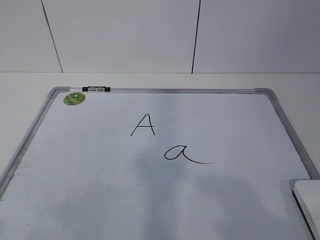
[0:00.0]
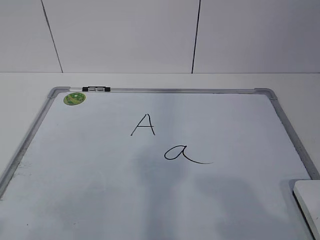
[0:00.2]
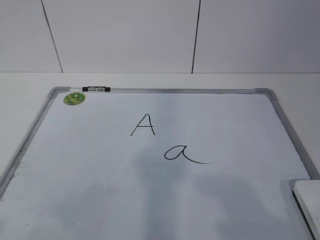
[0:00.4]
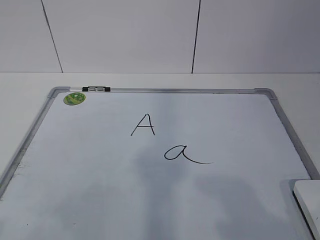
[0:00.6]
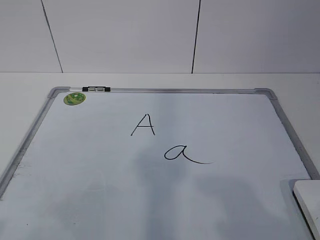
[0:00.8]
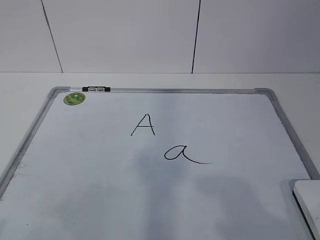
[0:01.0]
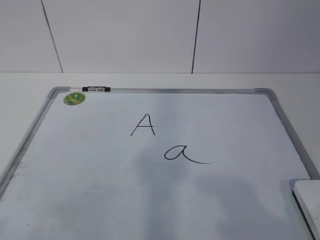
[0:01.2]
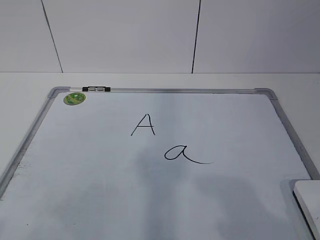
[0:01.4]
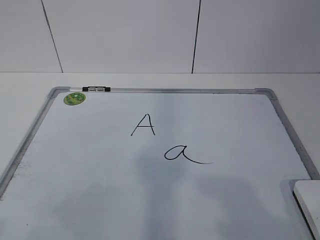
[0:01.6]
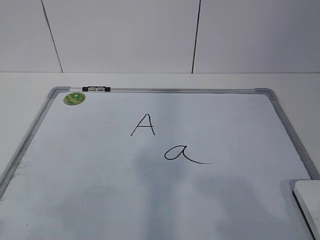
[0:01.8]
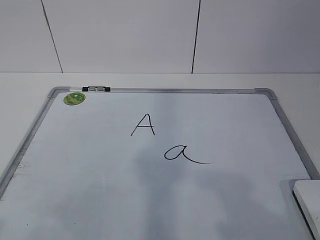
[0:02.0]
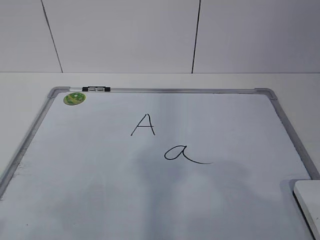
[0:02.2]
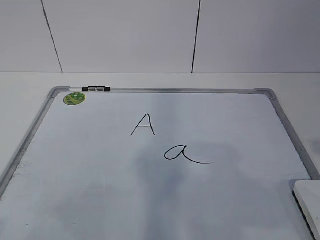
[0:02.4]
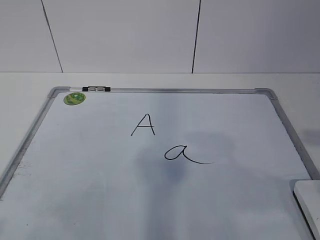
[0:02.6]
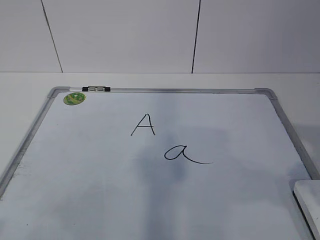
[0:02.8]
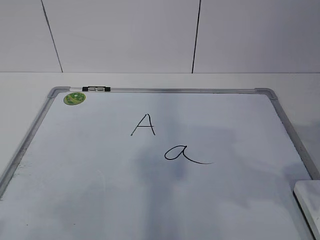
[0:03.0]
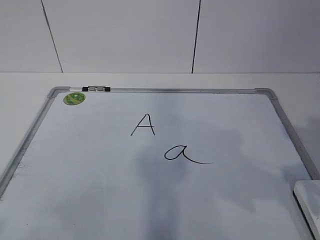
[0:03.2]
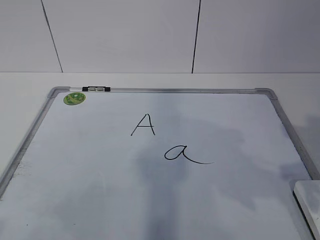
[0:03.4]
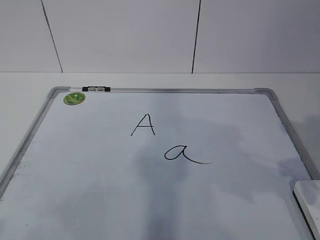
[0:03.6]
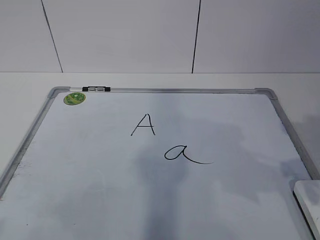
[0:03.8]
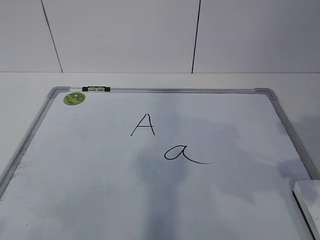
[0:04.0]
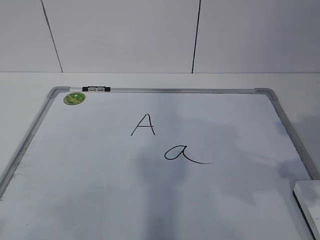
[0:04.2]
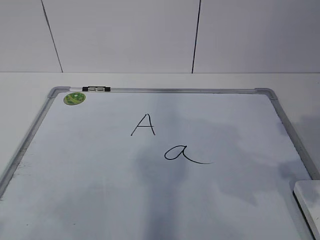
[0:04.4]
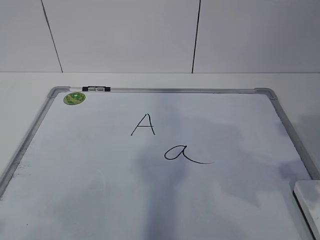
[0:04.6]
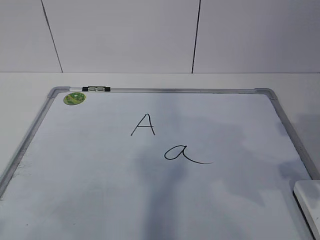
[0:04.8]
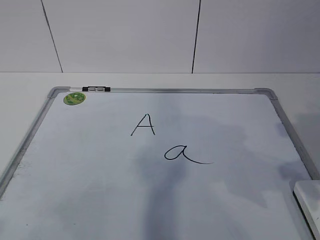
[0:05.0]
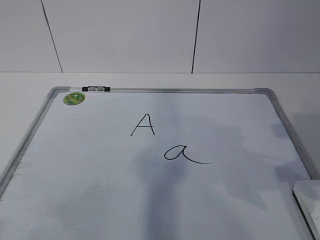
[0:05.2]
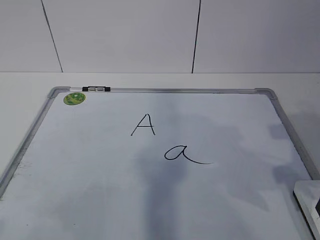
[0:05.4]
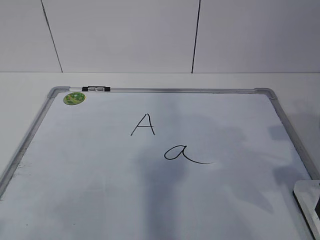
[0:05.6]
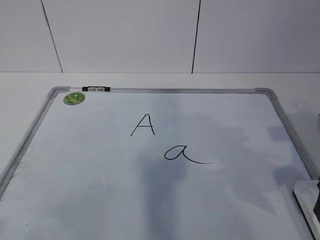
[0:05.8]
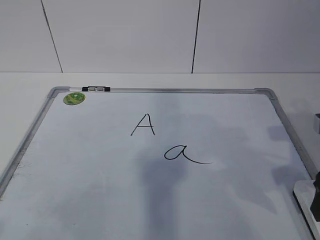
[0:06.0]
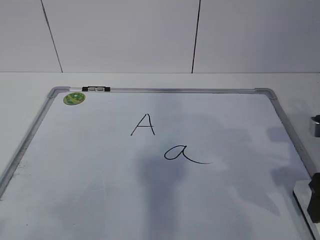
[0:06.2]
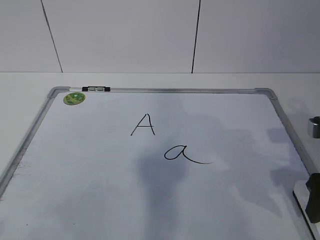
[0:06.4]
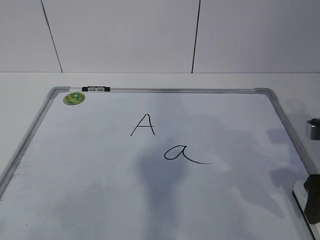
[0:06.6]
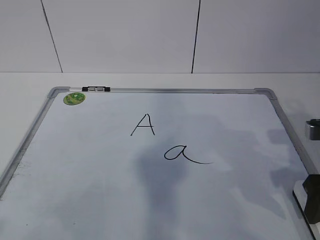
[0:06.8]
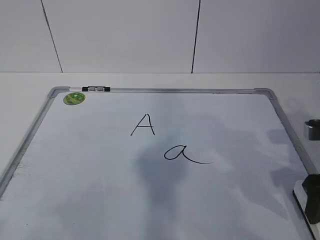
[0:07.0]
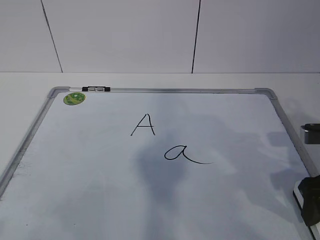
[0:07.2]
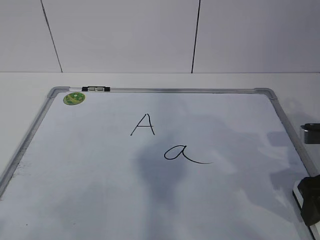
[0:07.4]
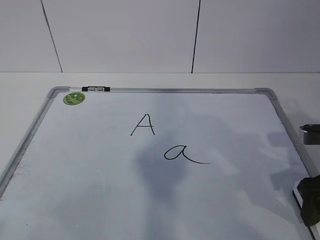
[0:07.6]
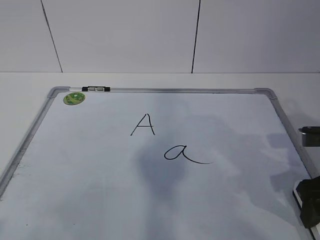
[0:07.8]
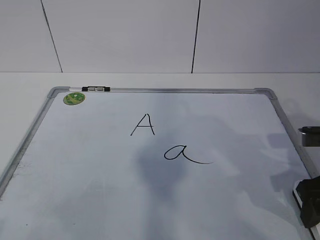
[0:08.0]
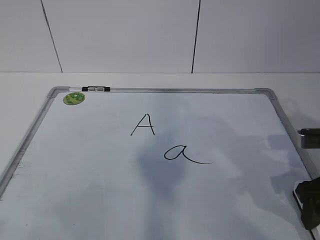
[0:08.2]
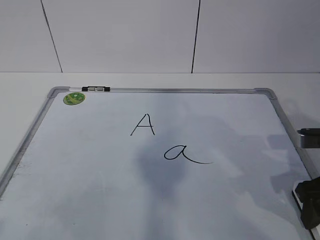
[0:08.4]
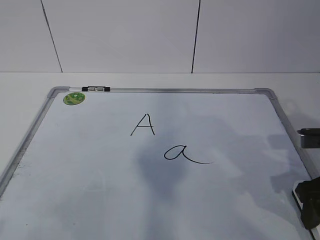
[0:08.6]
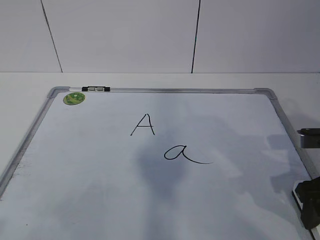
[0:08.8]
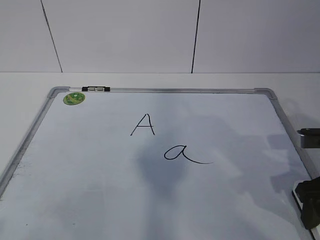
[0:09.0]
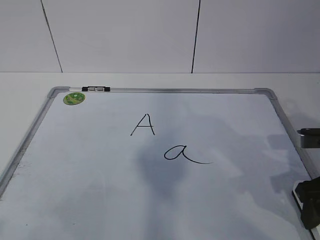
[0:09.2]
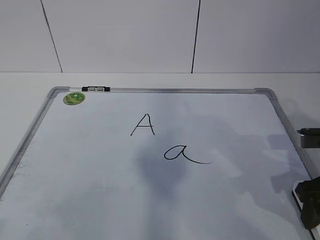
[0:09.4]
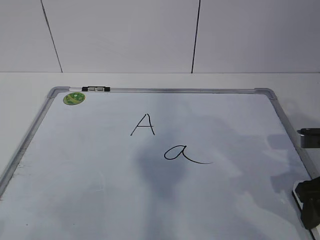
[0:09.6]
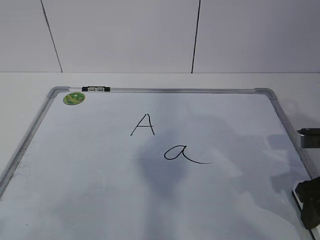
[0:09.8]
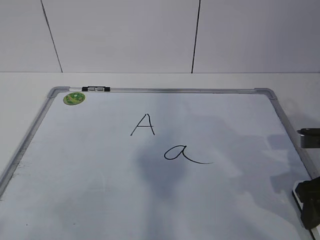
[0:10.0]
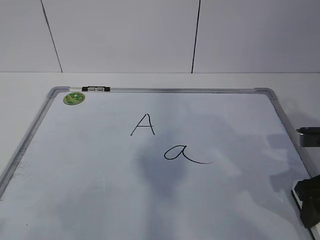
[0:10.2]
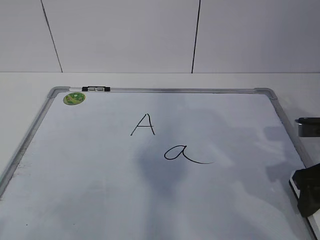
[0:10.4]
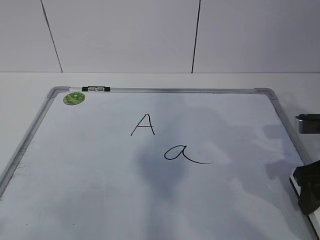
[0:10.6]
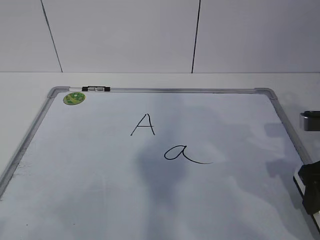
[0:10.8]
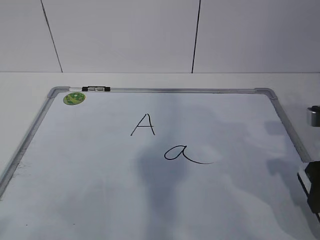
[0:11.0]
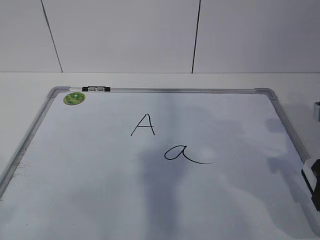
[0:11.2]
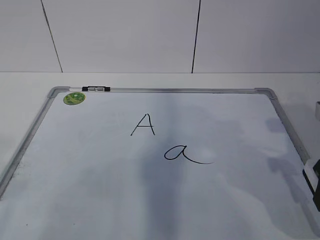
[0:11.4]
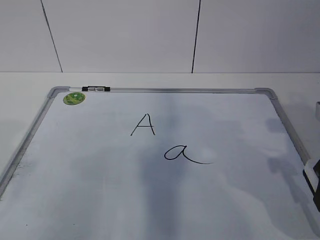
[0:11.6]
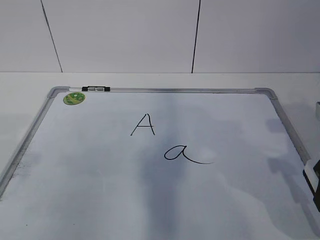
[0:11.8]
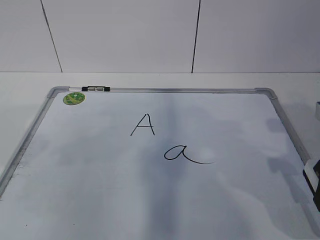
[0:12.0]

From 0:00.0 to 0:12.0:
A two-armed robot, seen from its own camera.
Task of the whole recording: pick up the eraser on the blackboard and erase the letter "a".
Step, from 0:07.0 to 0:11.6: Hold the drawing board steady with your left hand.
From 0:06.0 to 0:07.6: The grippers move only a little.
From 0:07.6 to 0:10.4: Both grippers stay put.
From 0:10.4 to 0:12.0: The right gripper moves roughly 5 cm.

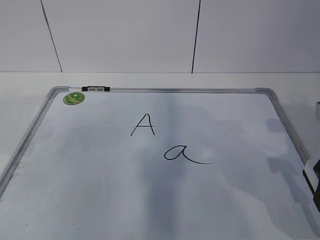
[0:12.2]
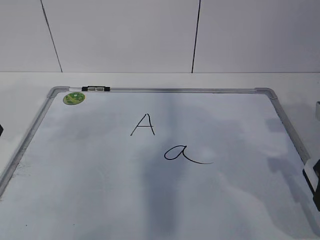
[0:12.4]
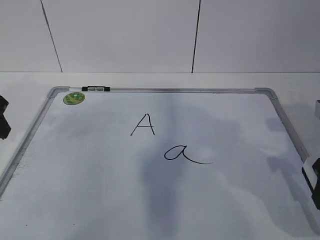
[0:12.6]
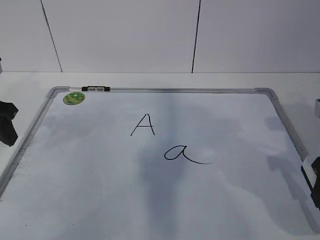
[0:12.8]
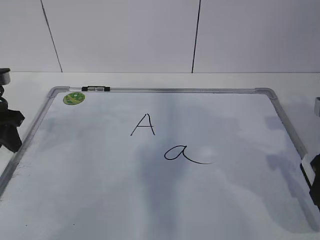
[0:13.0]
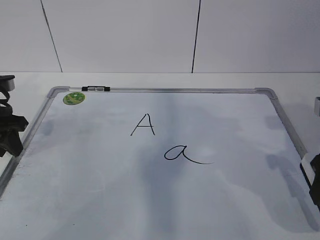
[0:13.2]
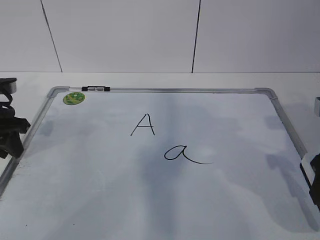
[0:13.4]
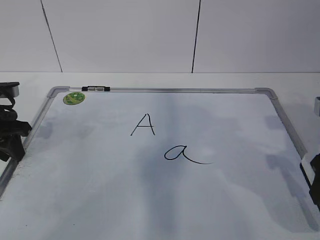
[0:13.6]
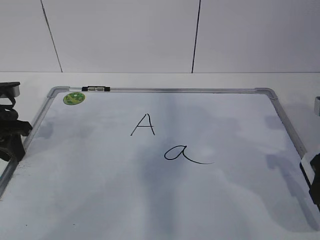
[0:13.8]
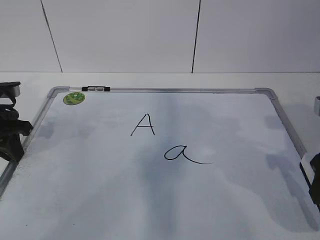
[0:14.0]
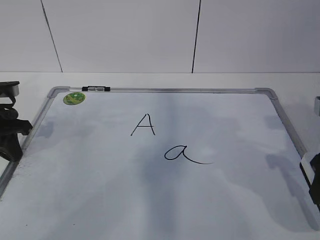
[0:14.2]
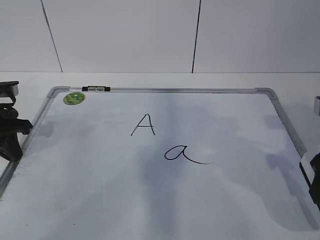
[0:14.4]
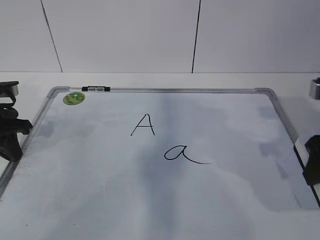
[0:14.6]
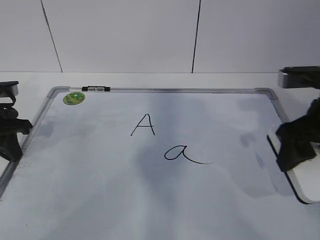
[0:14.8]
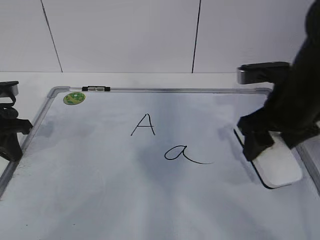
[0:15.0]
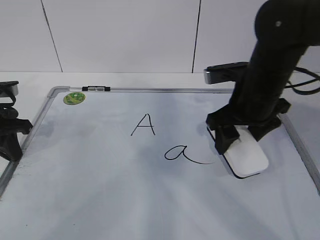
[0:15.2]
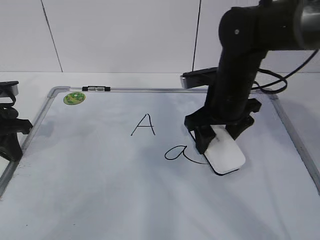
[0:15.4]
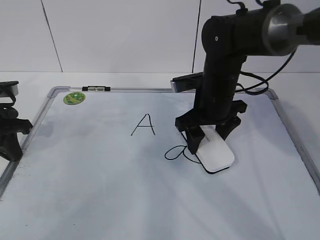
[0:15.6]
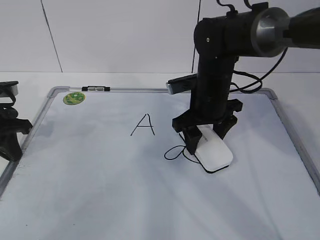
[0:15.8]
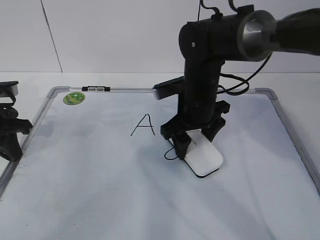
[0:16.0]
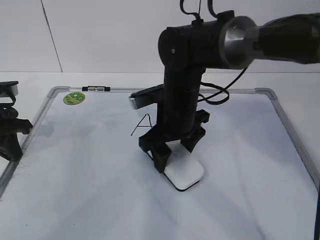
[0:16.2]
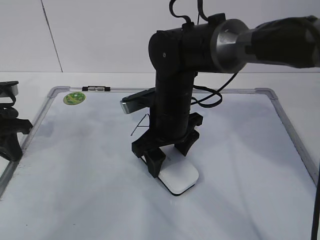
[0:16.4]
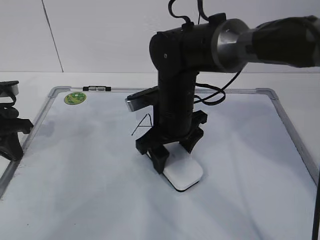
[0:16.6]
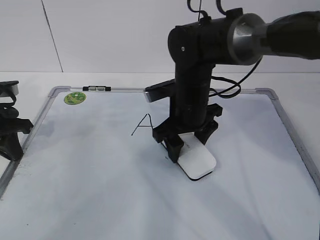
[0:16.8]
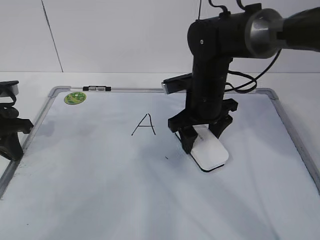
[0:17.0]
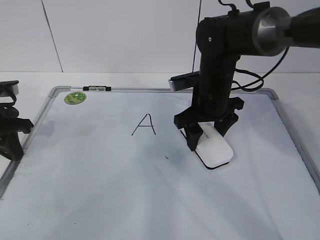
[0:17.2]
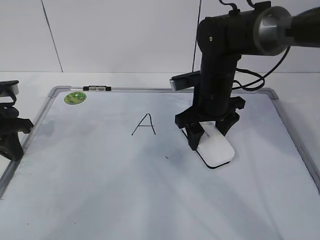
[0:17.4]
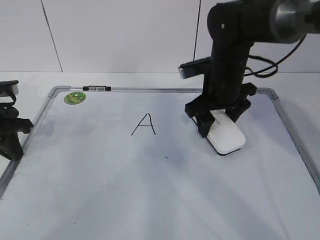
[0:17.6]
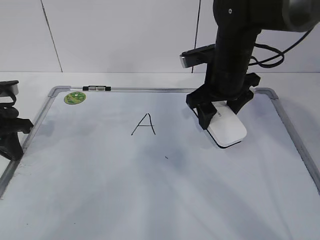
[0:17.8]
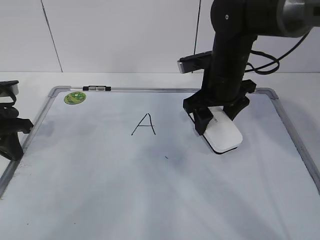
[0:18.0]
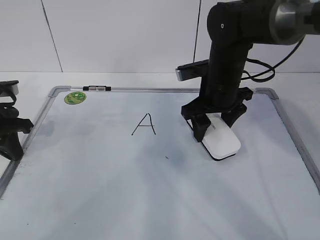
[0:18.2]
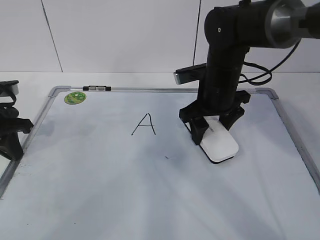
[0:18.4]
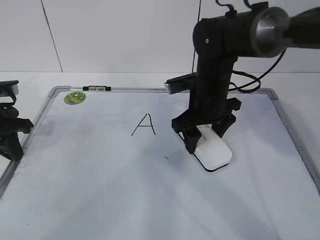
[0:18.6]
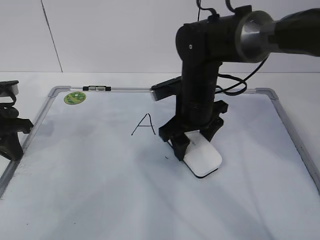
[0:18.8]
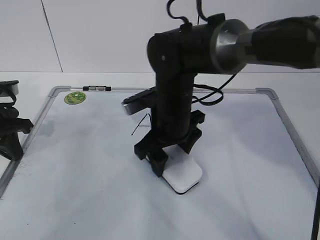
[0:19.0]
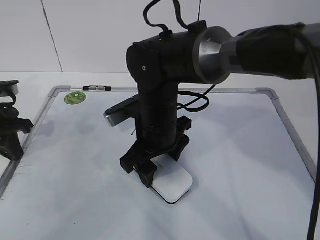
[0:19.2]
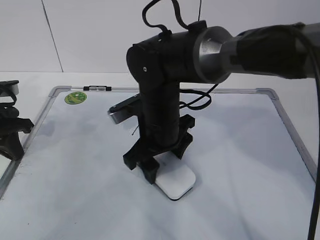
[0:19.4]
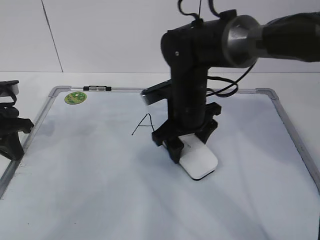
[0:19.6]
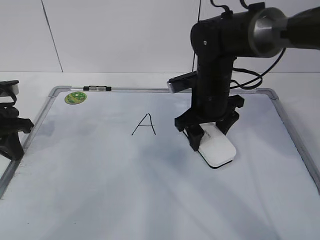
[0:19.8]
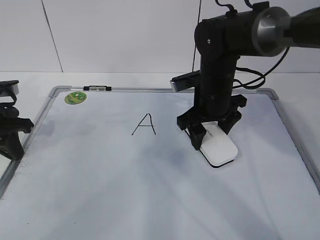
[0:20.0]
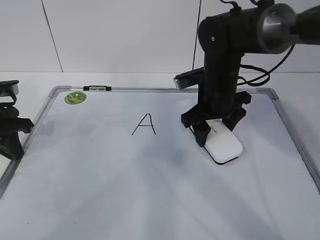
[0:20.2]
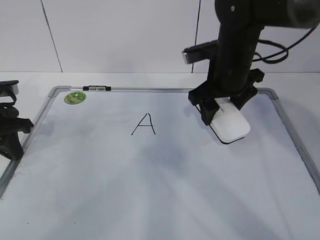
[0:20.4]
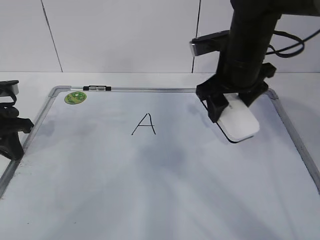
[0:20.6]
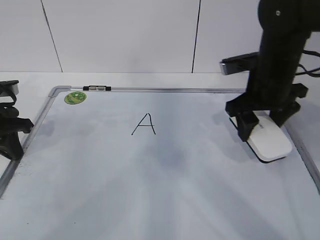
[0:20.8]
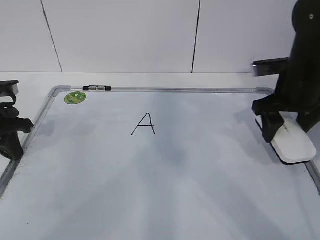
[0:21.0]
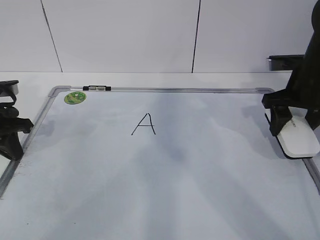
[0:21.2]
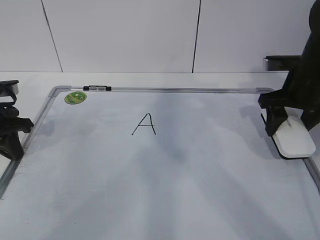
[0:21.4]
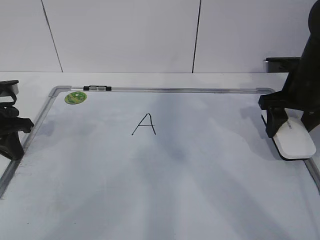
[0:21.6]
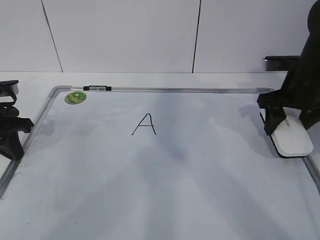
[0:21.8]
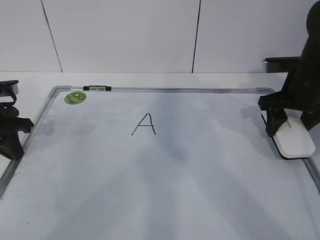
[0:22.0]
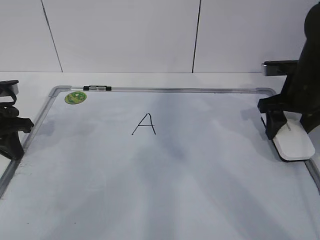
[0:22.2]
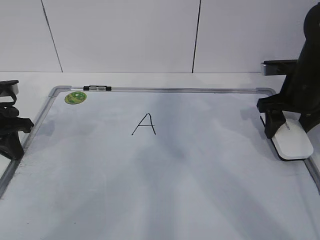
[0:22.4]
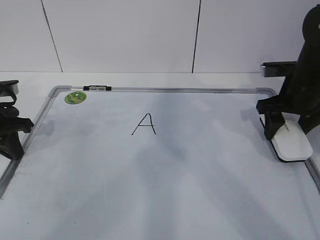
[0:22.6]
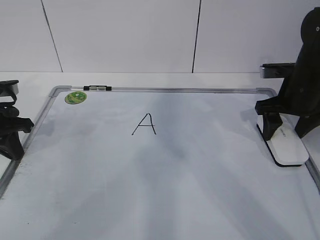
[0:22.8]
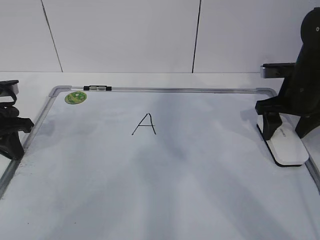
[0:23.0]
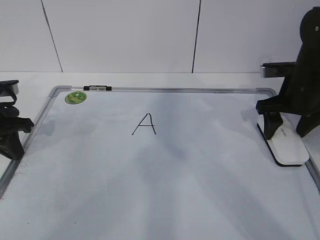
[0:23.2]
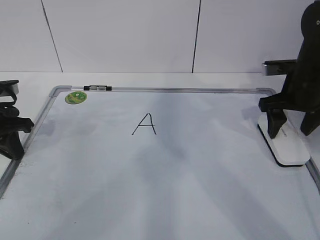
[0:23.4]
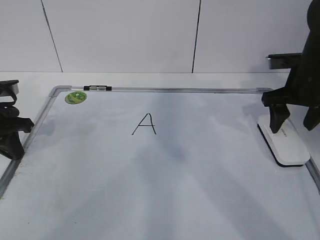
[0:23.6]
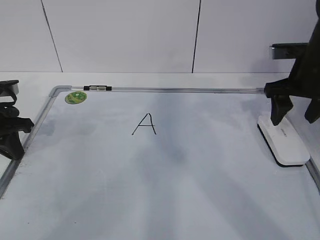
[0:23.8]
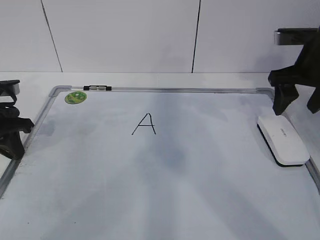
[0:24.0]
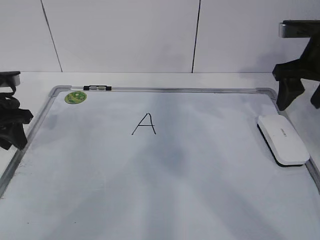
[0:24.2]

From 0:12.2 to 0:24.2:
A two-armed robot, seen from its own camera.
Task of the whole recording: pick up the eraser on the blackboard and erase the letter "a".
Step, from 0:12.2 to 0:16.6: Erase the letter a with your right hand.
Step, from 0:16.8 to 0:18.8: Put down the eraser with your right hand.
From 0:12.2 to 0:13.8: The left gripper moves forward and downward, roughly 15 cm, and closes its fingers.
From 0:13.8 to 0:15.2: The right gripper travels forward and to the left by about 15 cm. Meanwhile the left gripper closes.
From 0:15.2 to 0:16.6: The right gripper heads to the left and downward, covering some 15 cm.
From 0:16.6 to 0:18.2: The right gripper heads to the right, covering some 10 cm.
From 0:18.2 to 0:19.8: The right gripper reaches some 10 cm to the left, then returns.
From 0:19.8 to 0:21.2: The right gripper shifts some 15 cm to the right.
From 0:21.2 to 0:22.6: The grippers make only small movements.
From 0:22.6 to 0:24.2: The left gripper opens; the right gripper goes approximately 10 cm upward.
